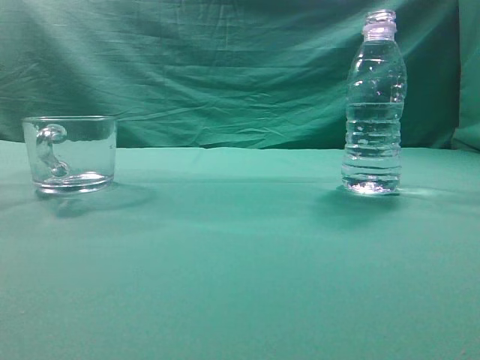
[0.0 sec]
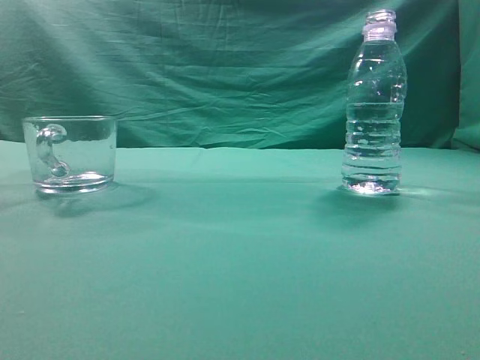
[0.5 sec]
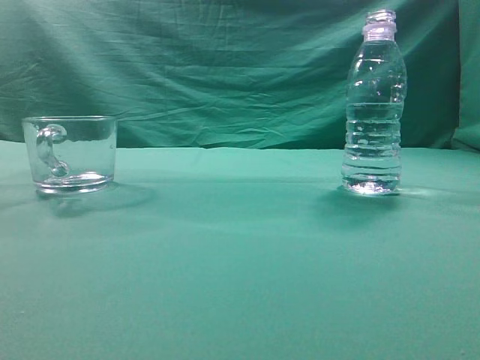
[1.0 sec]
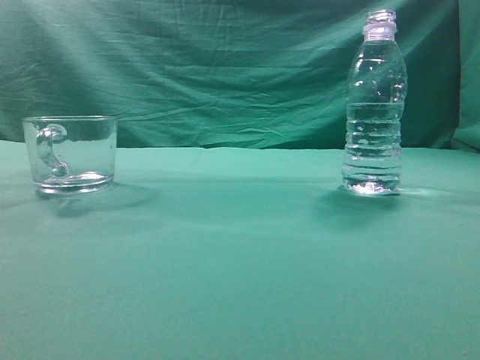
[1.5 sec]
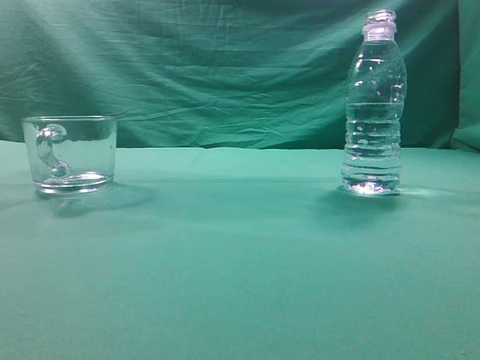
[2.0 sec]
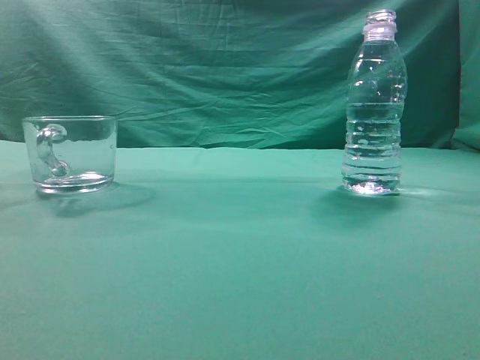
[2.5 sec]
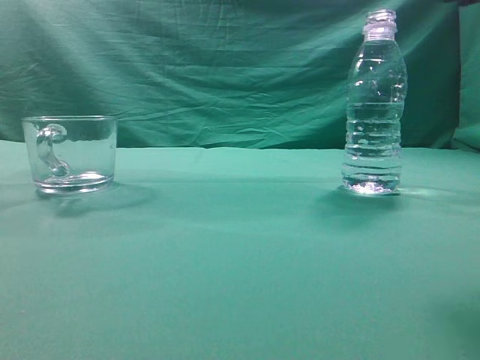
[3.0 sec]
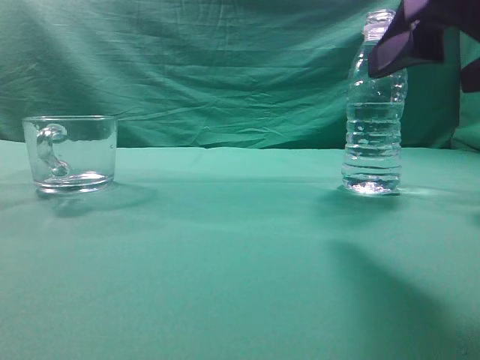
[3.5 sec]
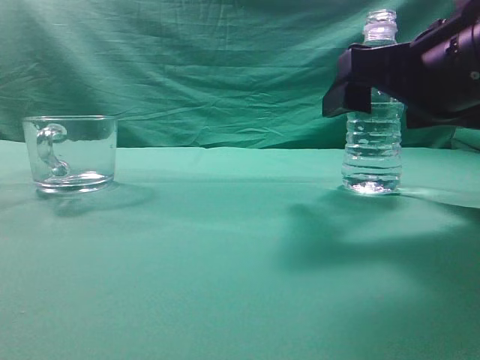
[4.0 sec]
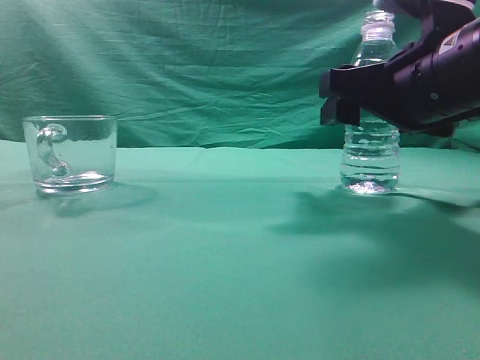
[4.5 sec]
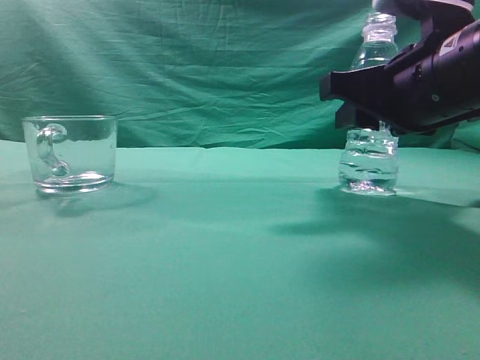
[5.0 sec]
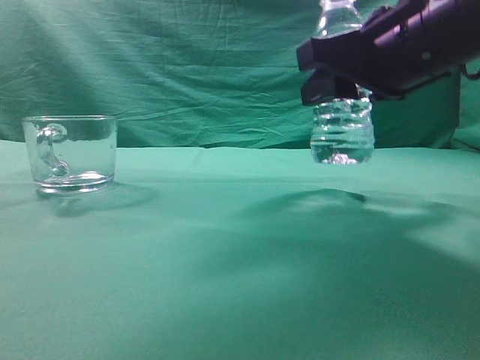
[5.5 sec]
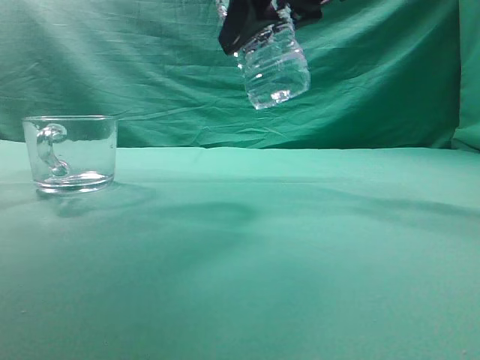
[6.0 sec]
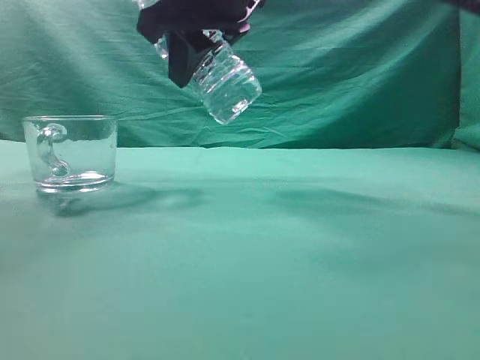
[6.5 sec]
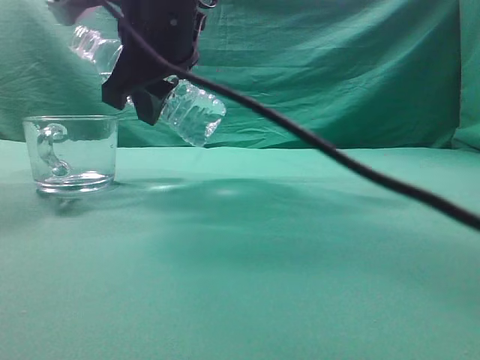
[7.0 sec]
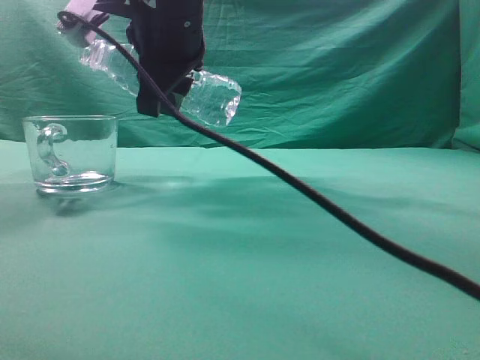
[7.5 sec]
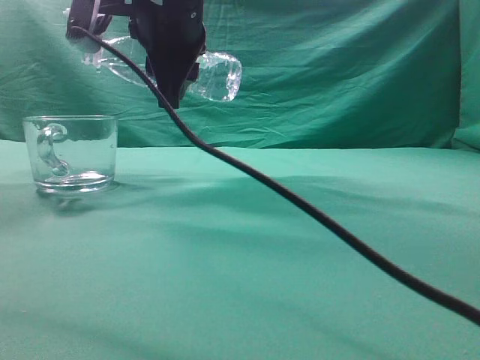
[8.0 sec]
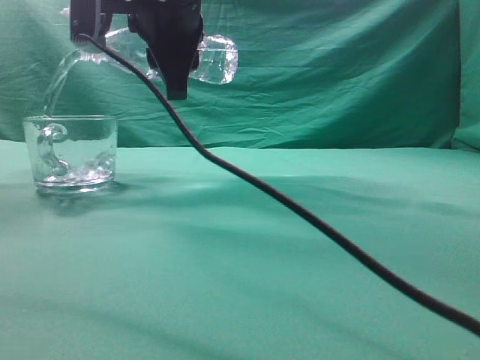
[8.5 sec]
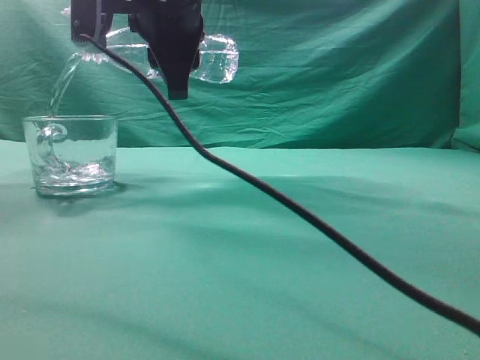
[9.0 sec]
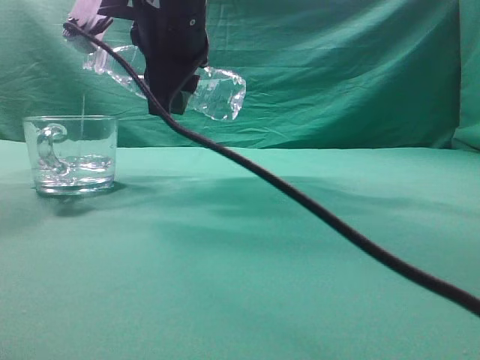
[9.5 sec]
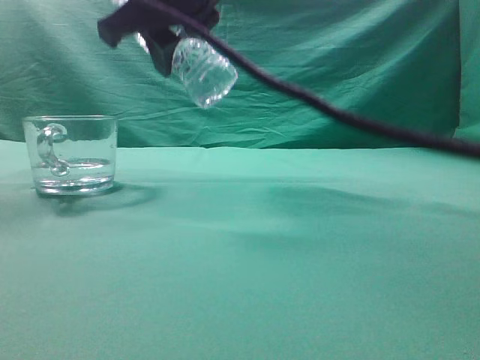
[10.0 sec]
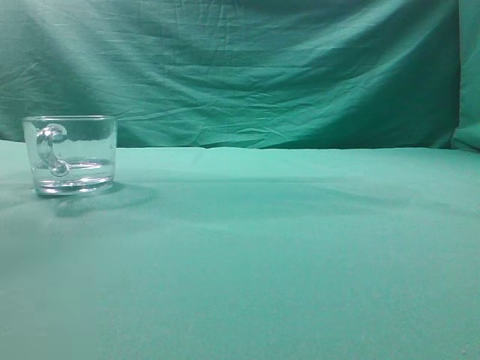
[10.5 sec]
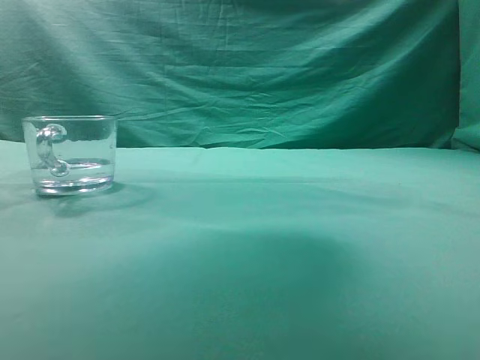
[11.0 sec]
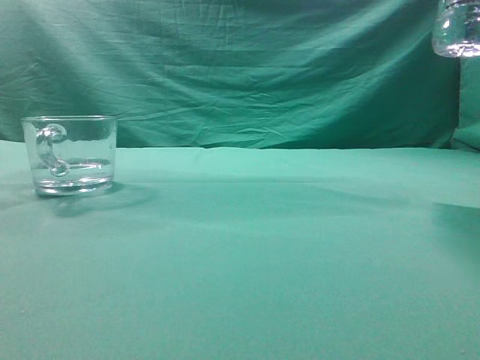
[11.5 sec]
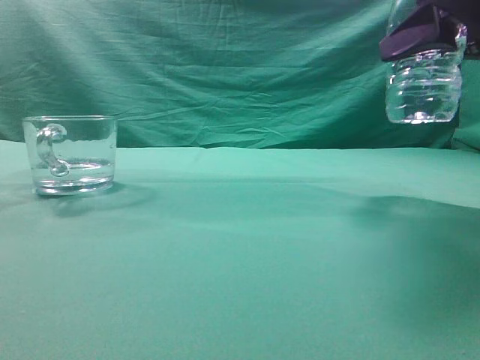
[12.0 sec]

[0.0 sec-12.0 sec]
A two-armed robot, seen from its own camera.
Task of the whole recording: pick up the water bottle and pour the water in it into the glass.
Step, 0.0 sec to 5.5 sec: Grasp the mineral water bottle.
Step, 6.0 sec to 9.5 sec: Pour water into the teacup.
2.0 sec to 4.0 sec: The right gripper moves forward, downward and to the left, some 25 cm, and opens up.
4.0 sec to 6.0 sec: The right gripper heads upward and to the left, covering some 15 cm, and closes.
6.0 sec to 8.0 sec: The right gripper heads to the left and forward, covering approximately 15 cm.
10.0 sec to 12.0 sec: The right gripper goes approximately 30 cm to the right.

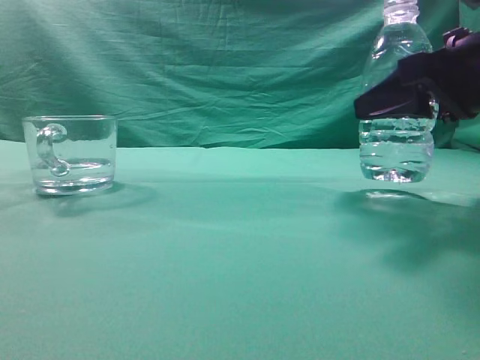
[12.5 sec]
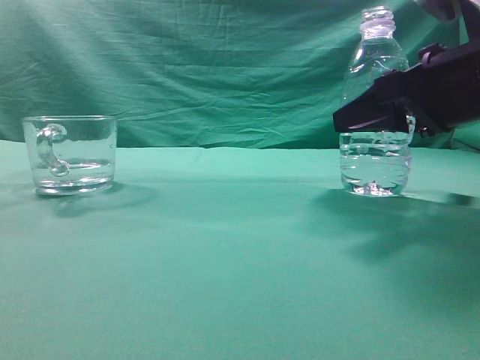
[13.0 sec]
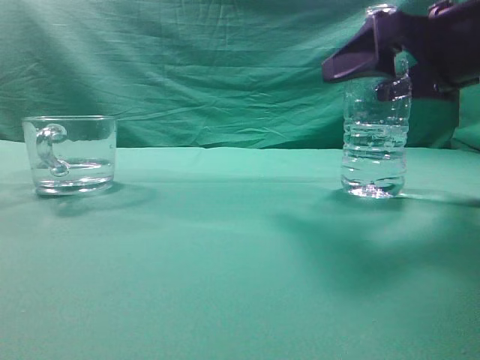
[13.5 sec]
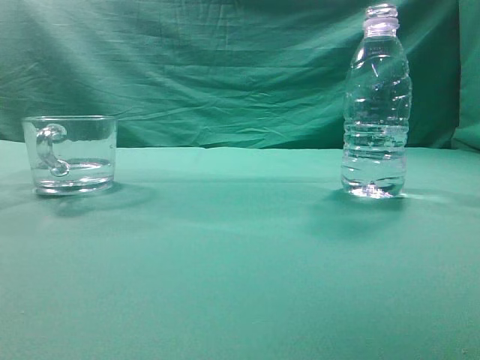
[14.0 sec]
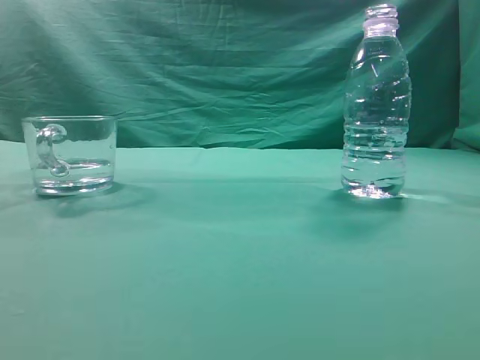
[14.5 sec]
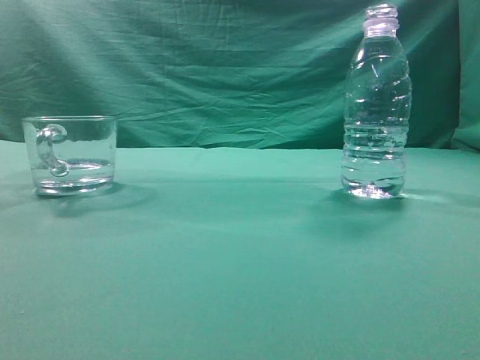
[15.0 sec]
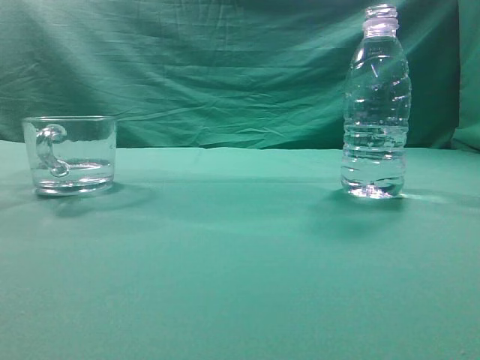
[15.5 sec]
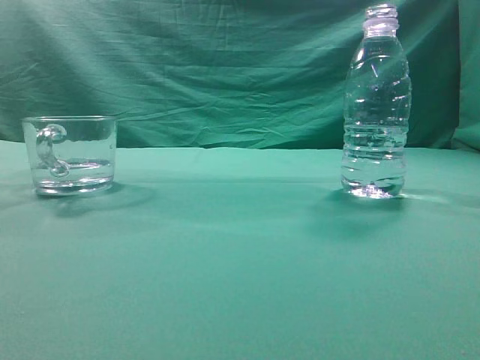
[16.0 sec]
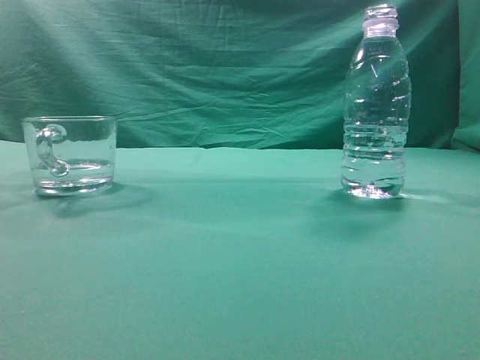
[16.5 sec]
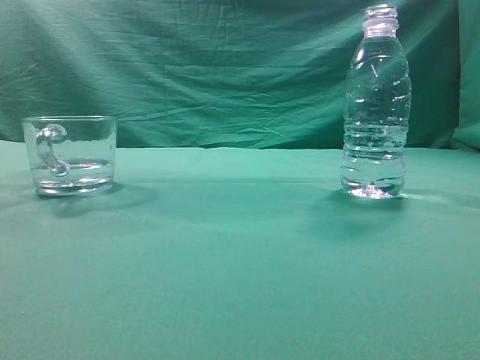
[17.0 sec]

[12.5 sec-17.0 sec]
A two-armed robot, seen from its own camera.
Task of the whole recording: pick up the water bottle and pour the water in it into the glass.
12.5 sec to 14.5 sec: The right gripper heads upward and backward, covering approximately 30 cm, and closes up.
